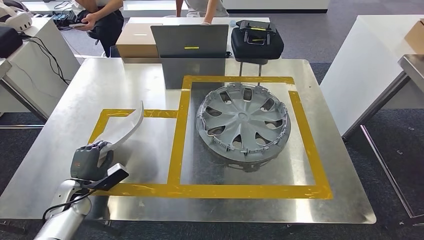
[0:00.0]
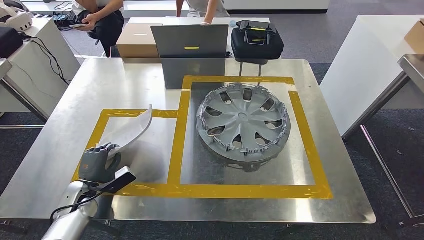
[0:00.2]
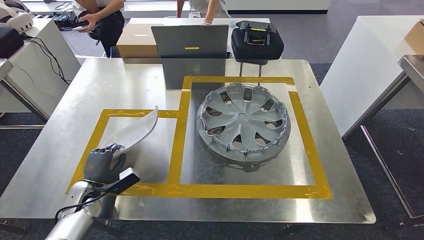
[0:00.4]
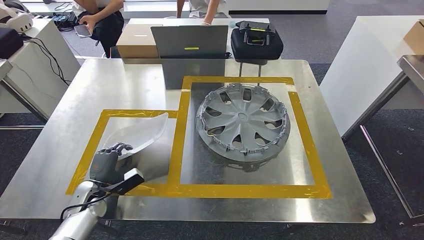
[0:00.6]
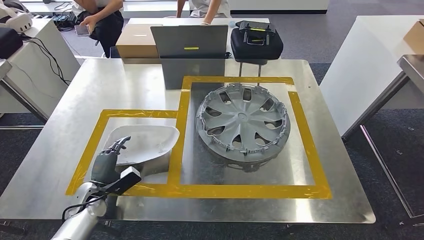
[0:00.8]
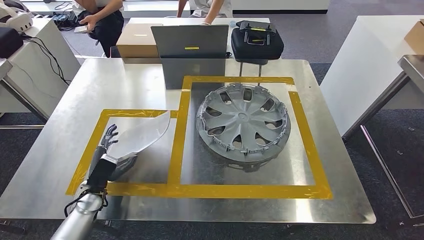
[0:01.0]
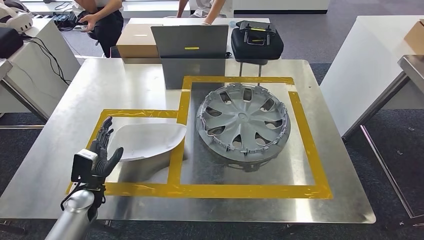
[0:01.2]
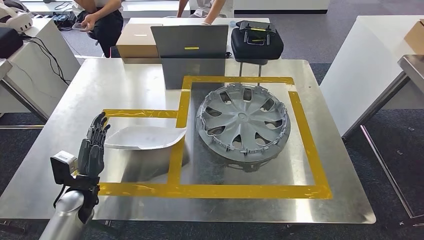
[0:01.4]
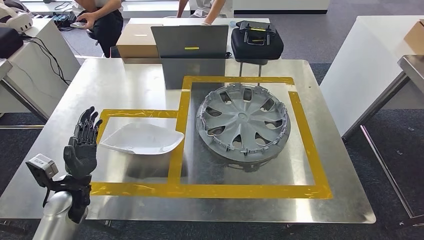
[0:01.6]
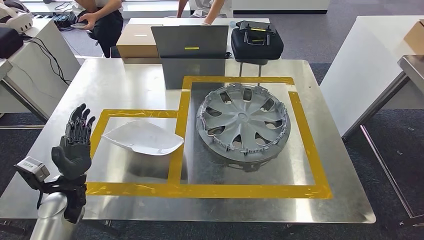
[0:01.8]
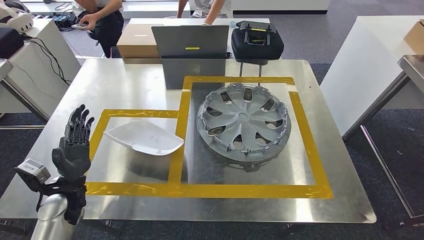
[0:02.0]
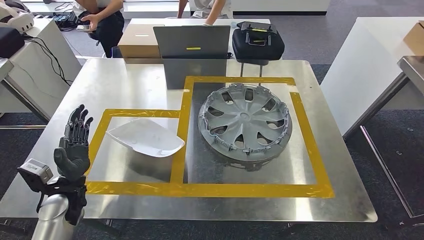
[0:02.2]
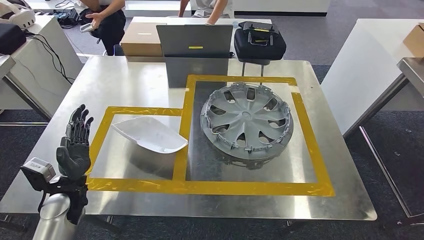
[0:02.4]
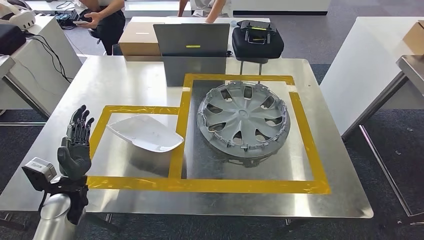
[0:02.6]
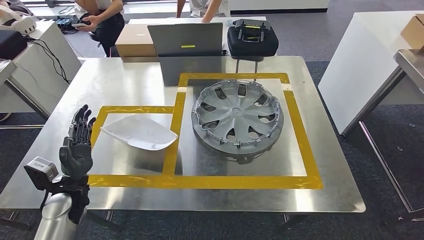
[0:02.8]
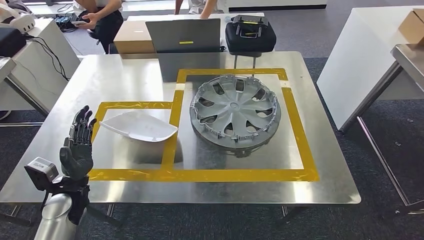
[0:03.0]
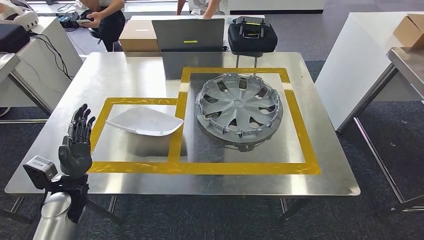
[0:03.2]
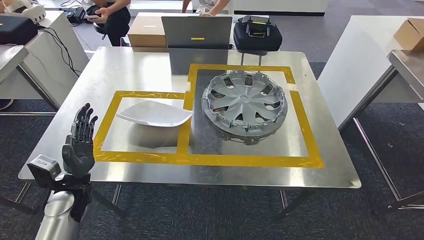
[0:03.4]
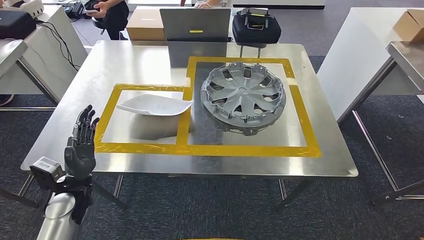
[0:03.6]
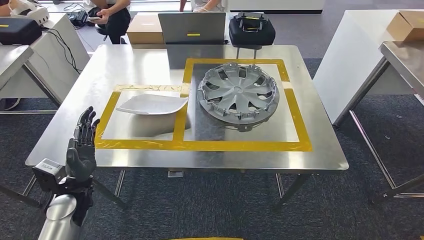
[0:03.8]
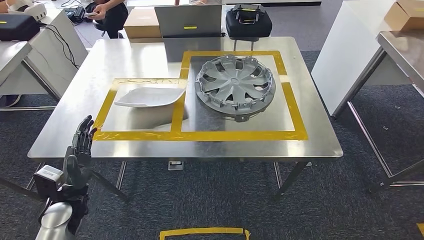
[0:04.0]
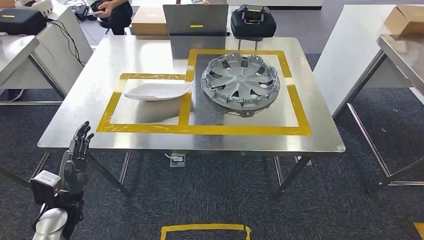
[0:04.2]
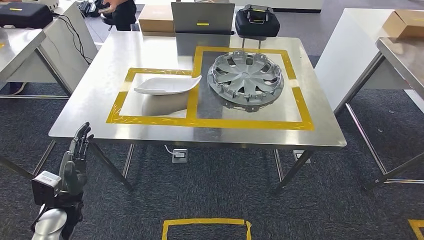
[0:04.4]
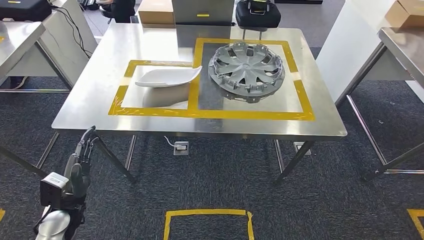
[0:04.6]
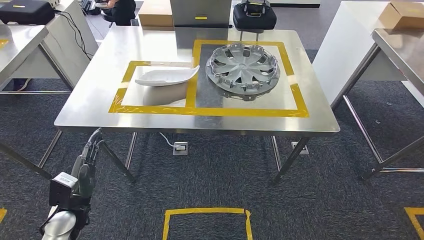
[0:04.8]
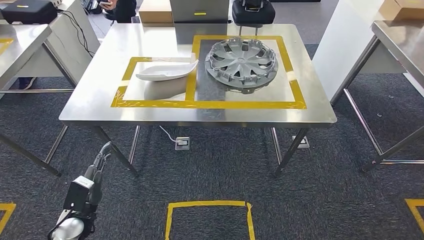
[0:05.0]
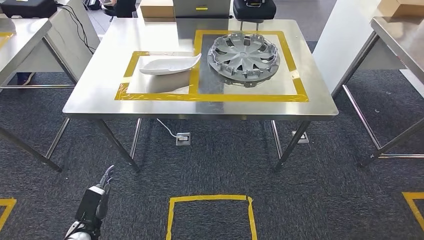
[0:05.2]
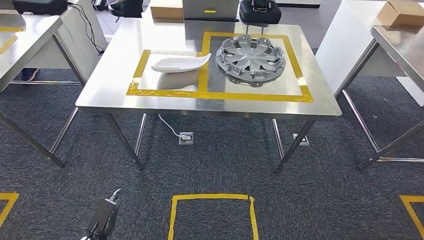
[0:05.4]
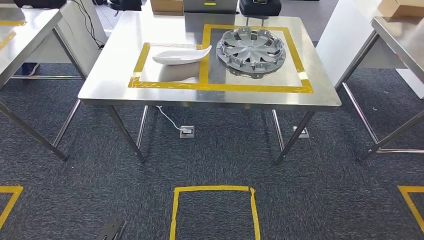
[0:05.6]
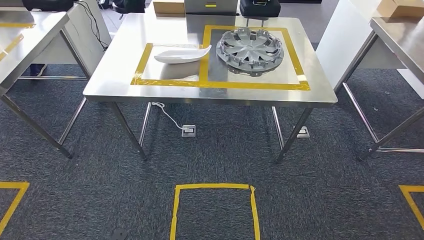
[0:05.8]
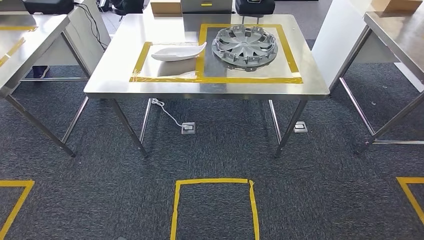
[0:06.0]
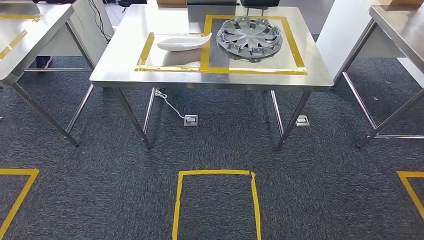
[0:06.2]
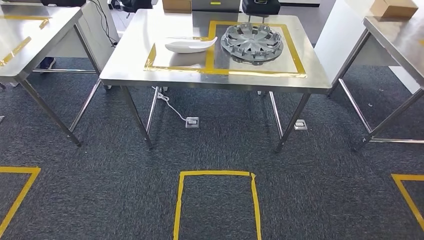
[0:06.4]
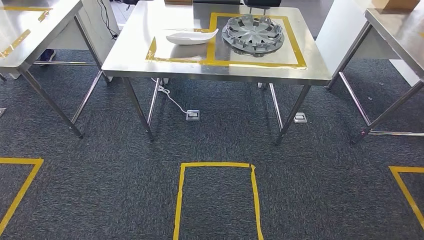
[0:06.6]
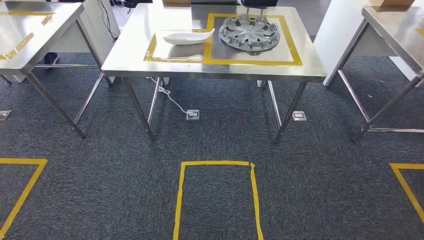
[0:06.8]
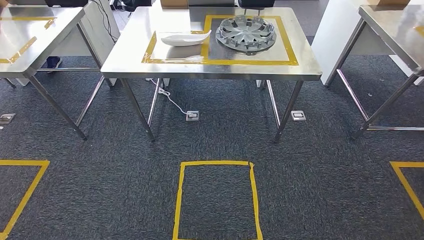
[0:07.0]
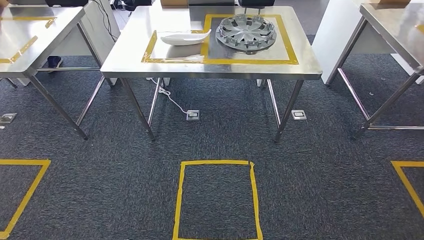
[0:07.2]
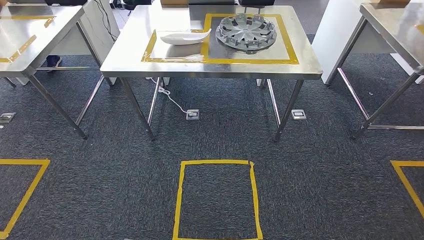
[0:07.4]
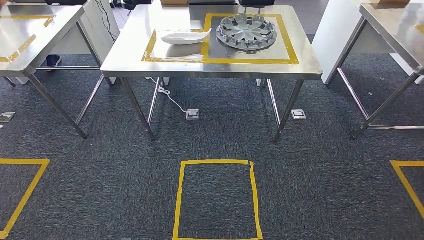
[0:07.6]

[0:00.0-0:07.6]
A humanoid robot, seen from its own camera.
Step, 0:00.0 to 0:02.4: Insert the small parts into the corresponding holes on the workbench.
Step, 0:02.6 to 0:07.6: Move to the initial position at the workbench.
0:00.0 to 0:01.6: The left hand is displaced upward by roughly 5 cm.
